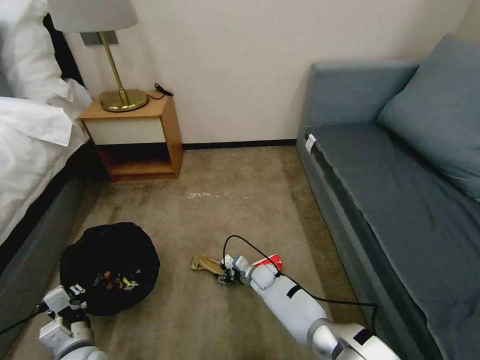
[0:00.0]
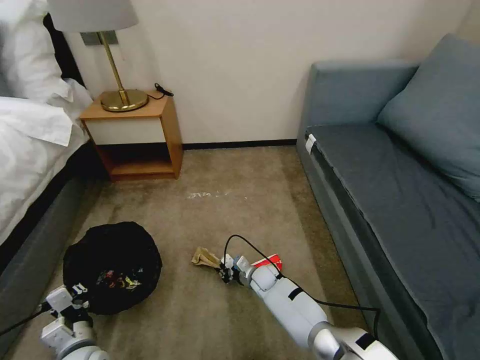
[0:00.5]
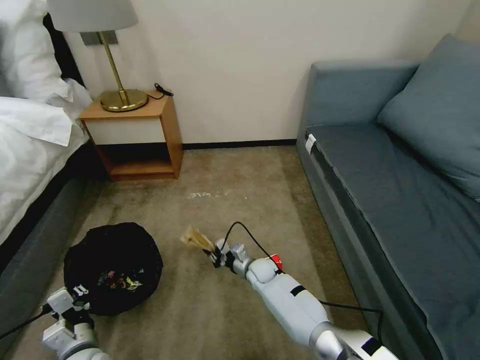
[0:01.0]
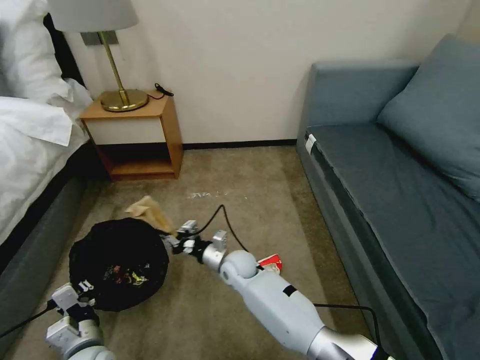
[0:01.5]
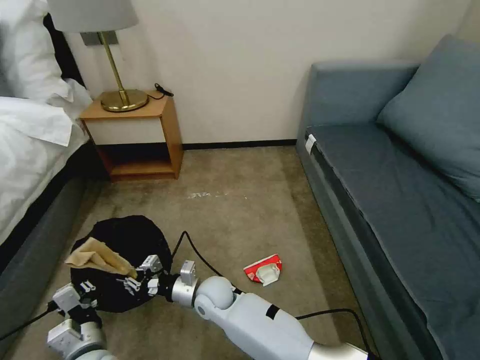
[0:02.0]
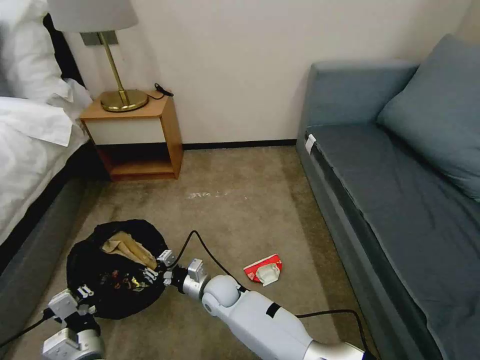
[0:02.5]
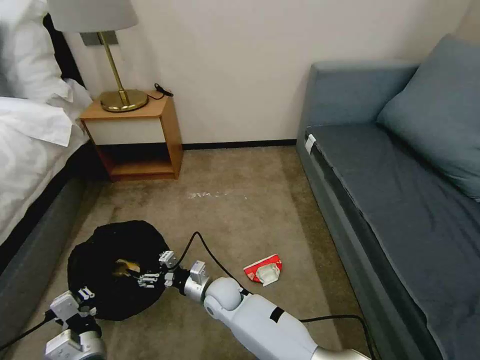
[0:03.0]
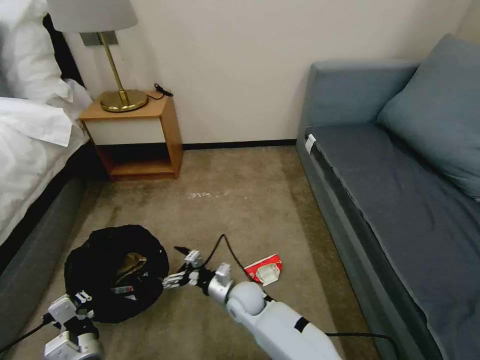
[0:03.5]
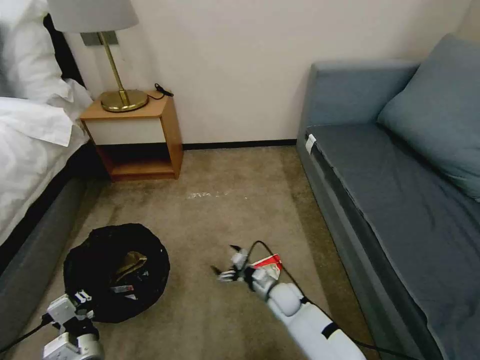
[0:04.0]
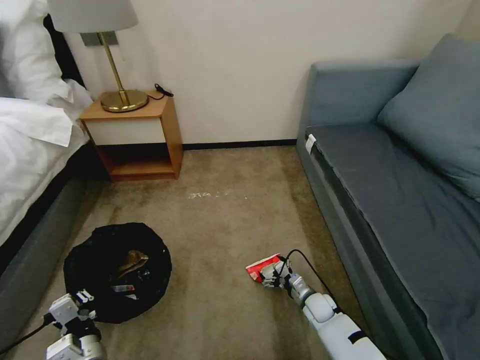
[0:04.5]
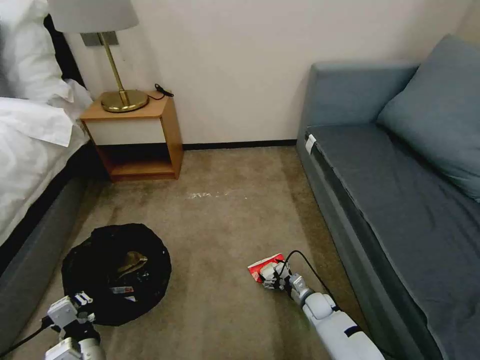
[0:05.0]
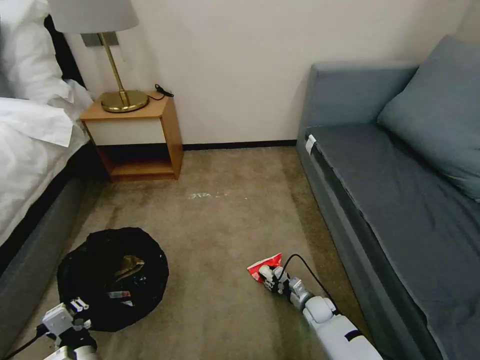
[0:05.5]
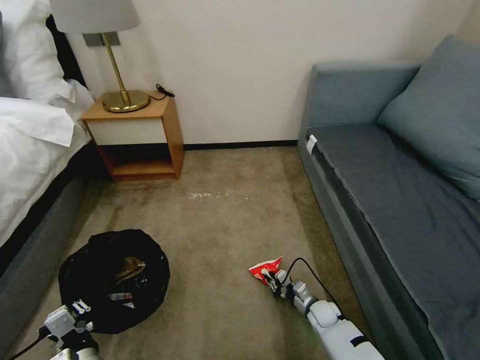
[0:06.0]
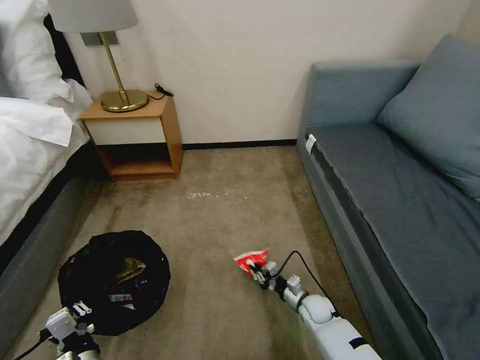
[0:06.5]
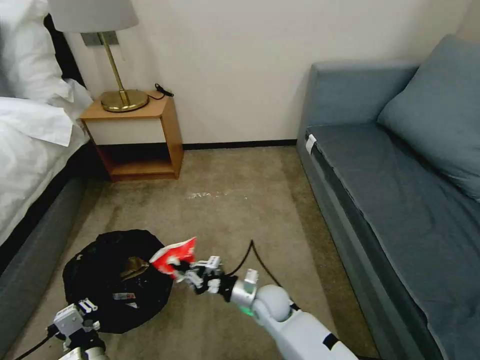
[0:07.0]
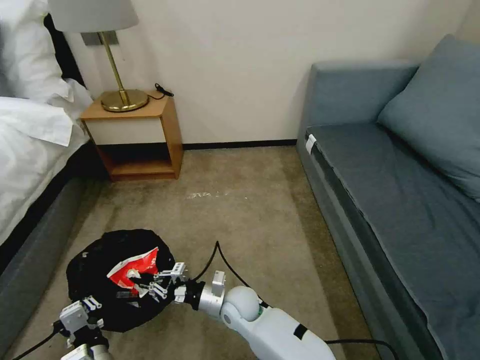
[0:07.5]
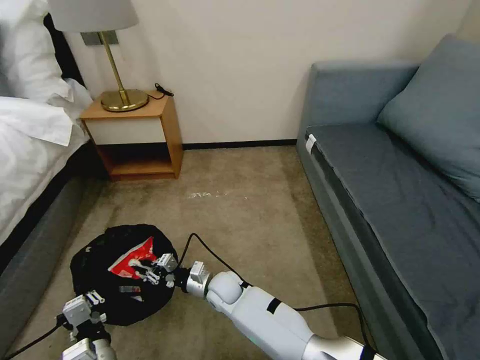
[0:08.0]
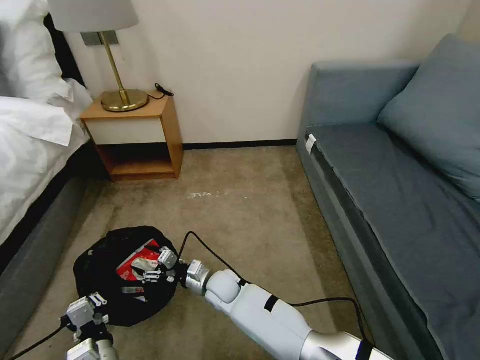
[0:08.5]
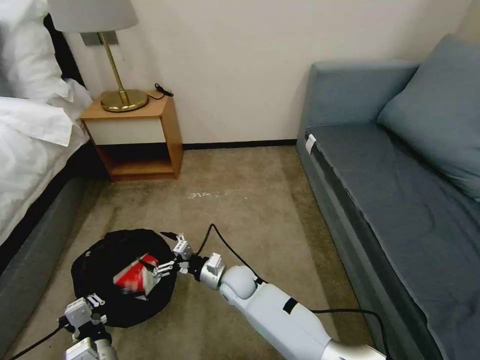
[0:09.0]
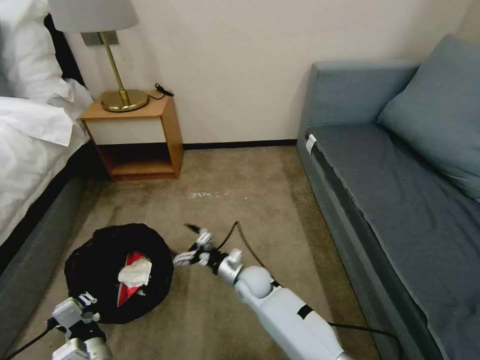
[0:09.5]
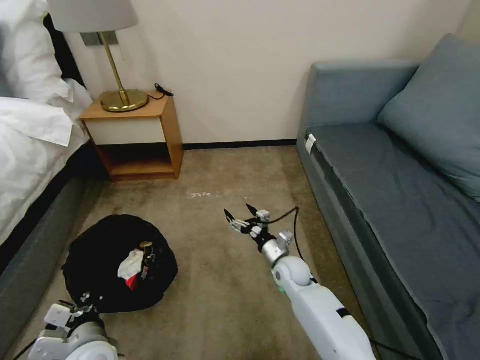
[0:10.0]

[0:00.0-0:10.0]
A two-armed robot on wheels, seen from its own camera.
Task of the whole recording: Pick up the trash bin, then pick up the garbage on the floor and place it into the trash bin.
0:00.0 to 0:02.0: The left gripper changes place by roughly 5 cm. The right gripper moves to the left, upward and backward, roughly 20 cm, and closes its fingers.
0:02.0 to 0:04.0: The right gripper shifts some 20 cm to the right and downward, and opens up.
0:04.0 to 0:06.0: The right gripper shifts about 15 cm to the right and downward, and closes.
0:06.0 to 0:08.0: The right gripper shifts some 35 cm to the left and upward.
0:08.0 to 0:10.0: The left gripper changes place by about 5 cm. The right gripper is displaced to the right by some 20 cm, and opens its fingers.

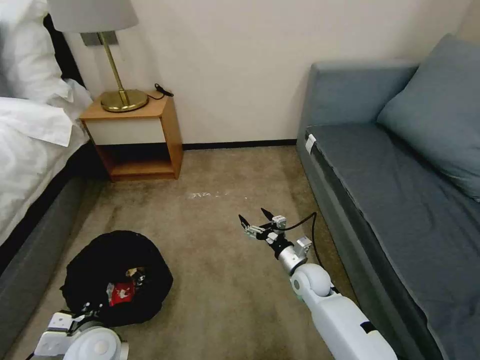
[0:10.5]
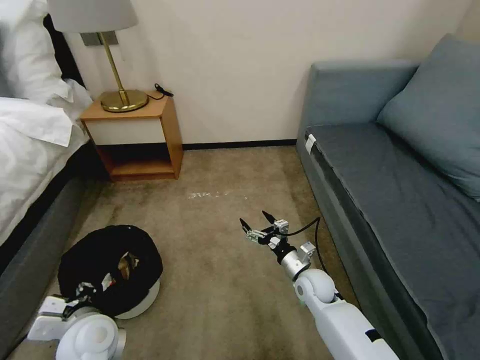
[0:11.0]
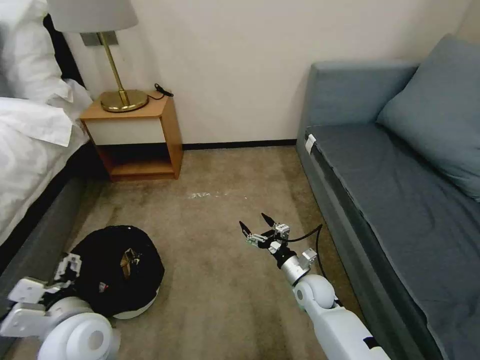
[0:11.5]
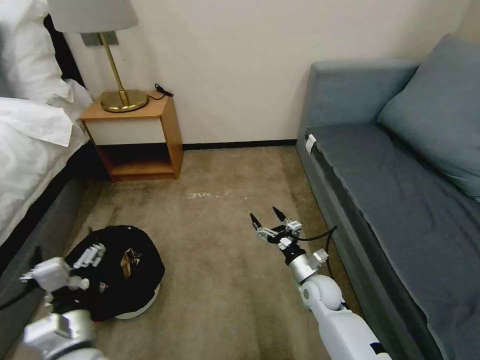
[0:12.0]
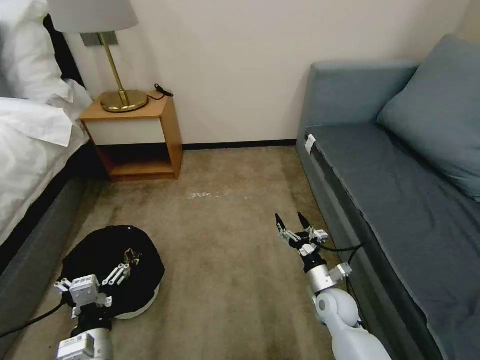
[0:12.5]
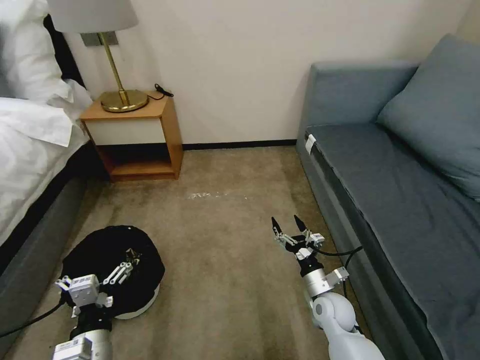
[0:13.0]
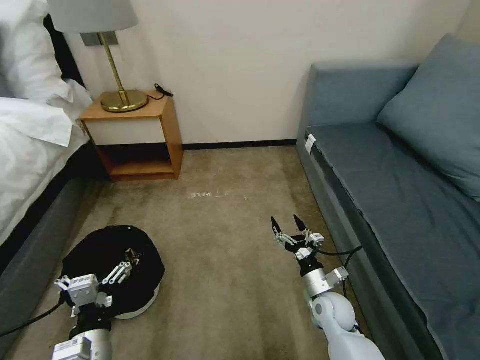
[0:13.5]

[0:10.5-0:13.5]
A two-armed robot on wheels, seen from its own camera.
Task of the whole recording: Pick up the trash bin, then pick up the garbage on the floor and place it into the trash bin.
0:10.5 to 0:12.0: The left gripper goes roughly 5 cm upward, and opens its fingers.
0:12.0 to 0:13.5: There are only small adjustments of the grippers.

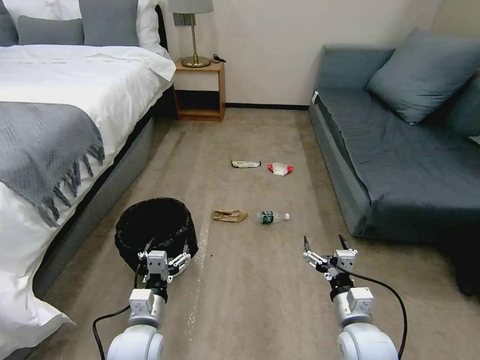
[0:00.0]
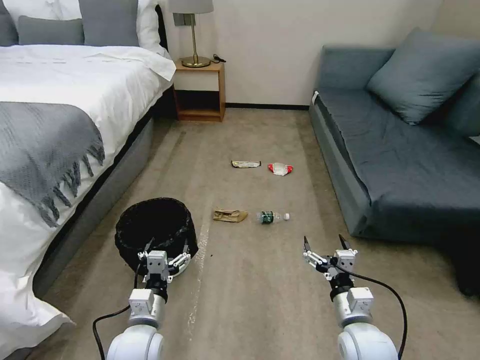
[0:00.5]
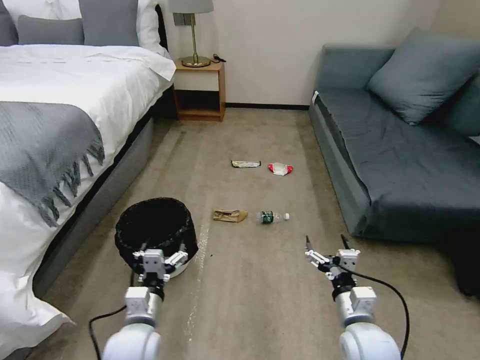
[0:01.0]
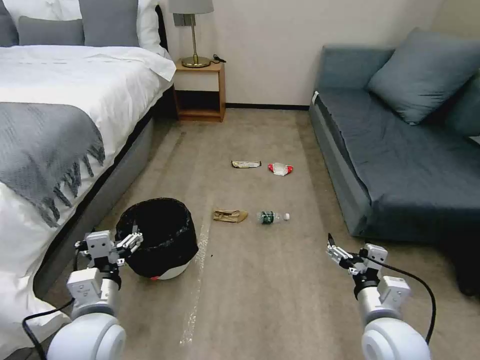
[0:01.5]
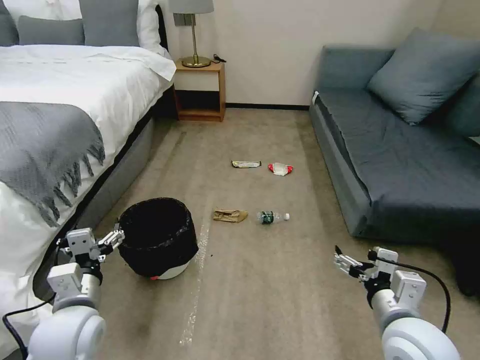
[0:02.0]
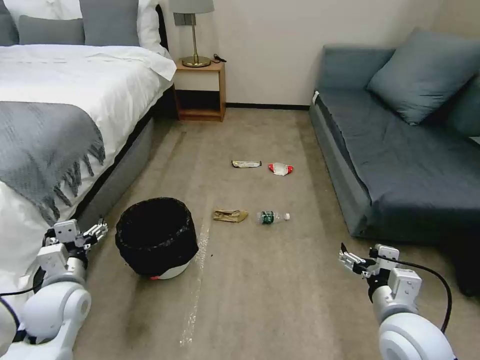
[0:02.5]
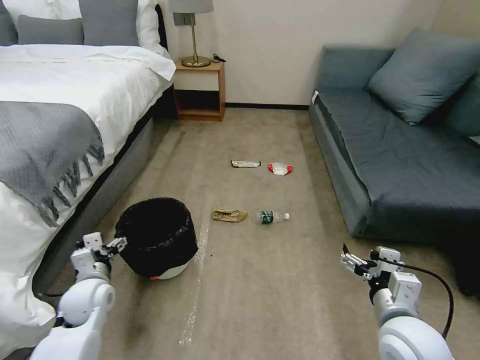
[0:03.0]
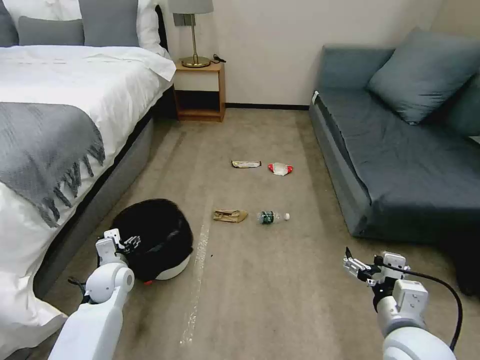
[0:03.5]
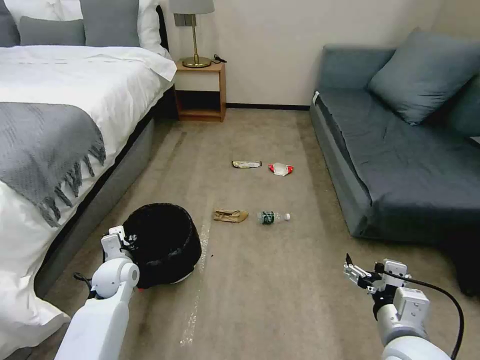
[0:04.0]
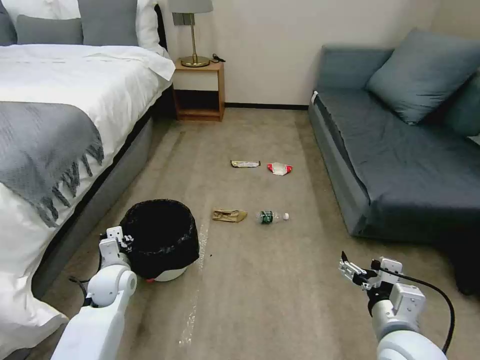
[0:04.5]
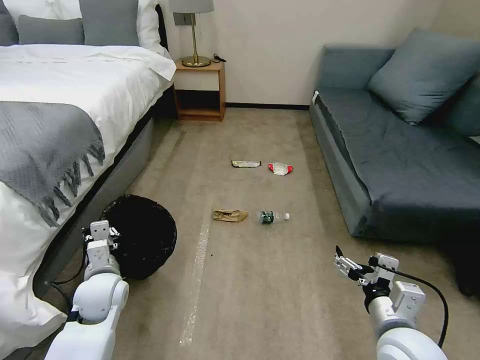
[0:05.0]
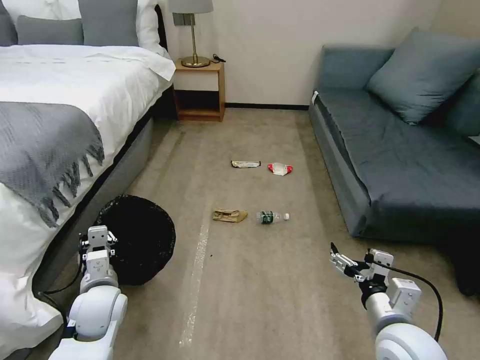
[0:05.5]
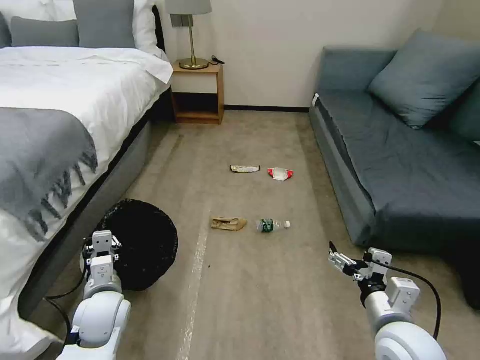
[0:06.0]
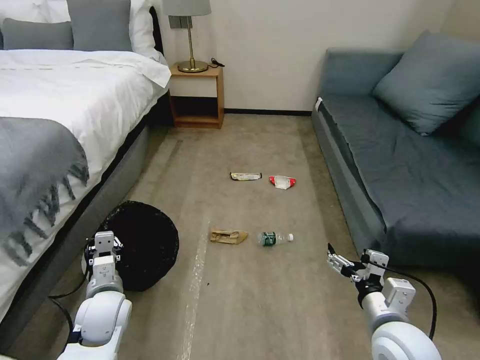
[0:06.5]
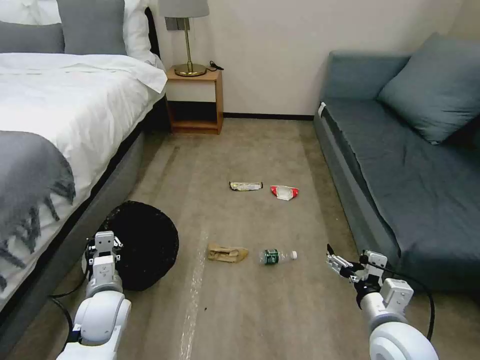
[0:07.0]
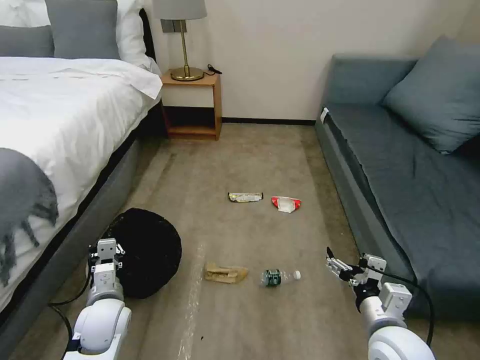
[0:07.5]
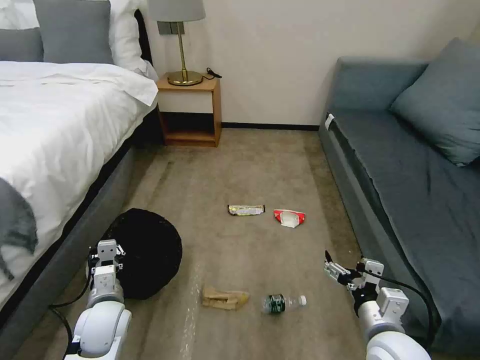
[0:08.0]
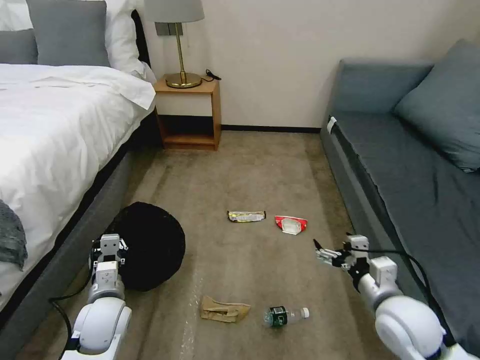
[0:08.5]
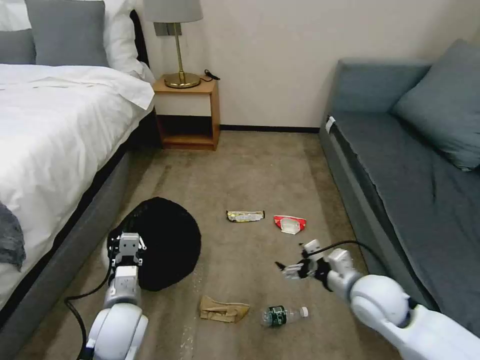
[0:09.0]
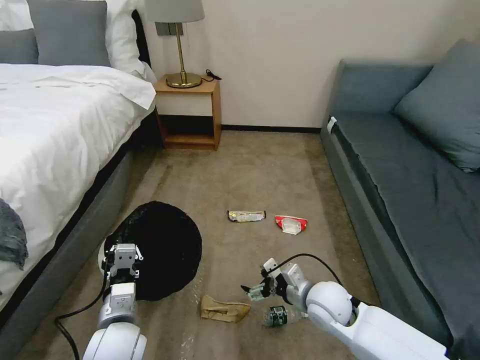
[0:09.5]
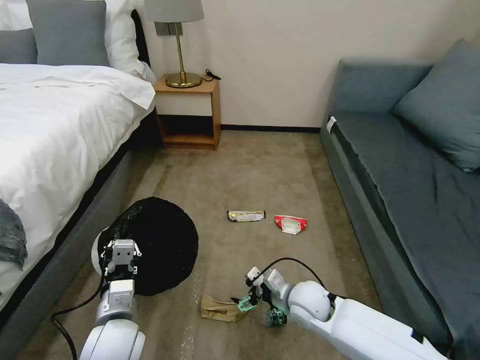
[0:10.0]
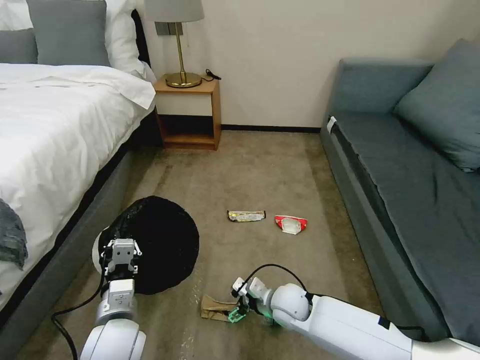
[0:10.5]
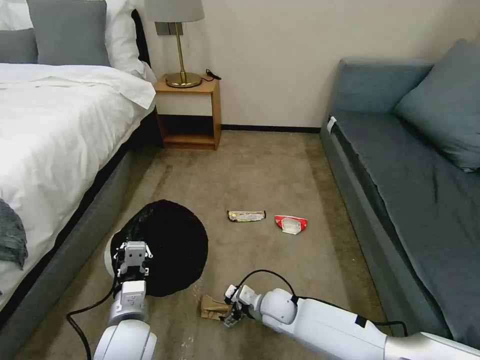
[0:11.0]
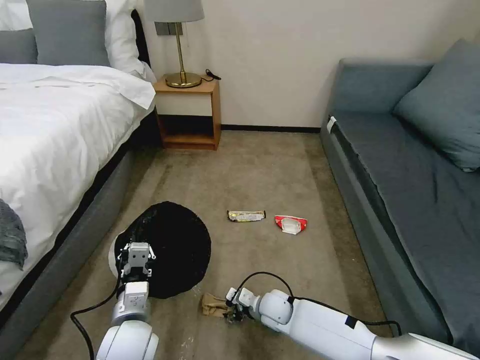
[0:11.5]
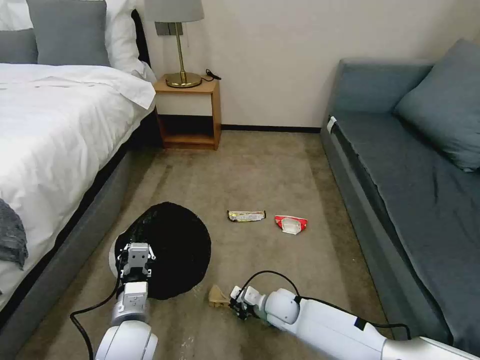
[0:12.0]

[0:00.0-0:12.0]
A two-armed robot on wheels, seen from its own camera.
Task of the whole recording: Pick up the trash bin, then pick up the garbage on the floor and place it into the trash bin.
0:02.0 to 0:04.0: The left gripper shifts approximately 20 cm forward and downward, and closes.
0:04.0 to 0:06.0: The left gripper heads backward, covering roughly 10 cm.
0:08.0 to 0:10.0: The left gripper travels to the right by roughly 5 cm. The right gripper is displaced forward, to the left and downward by approximately 20 cm.
0:10.0 to 0:12.0: The right gripper travels downward and to the left by about 10 cm, and closes up.
